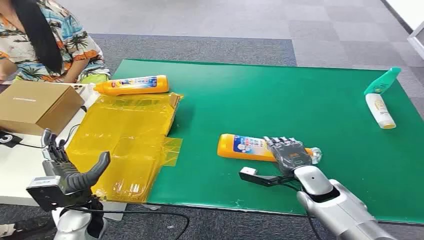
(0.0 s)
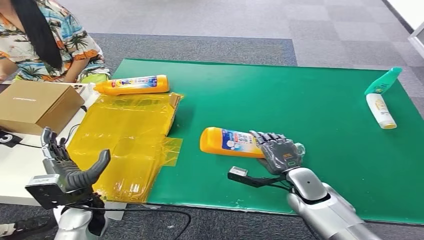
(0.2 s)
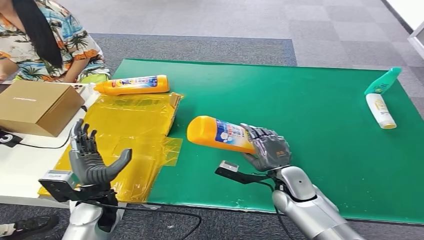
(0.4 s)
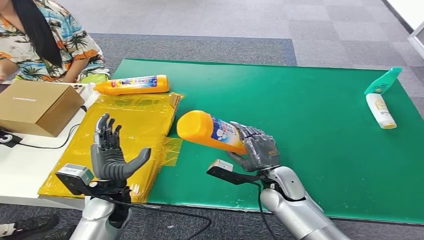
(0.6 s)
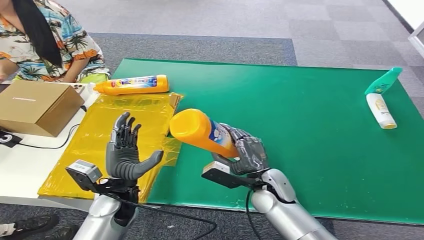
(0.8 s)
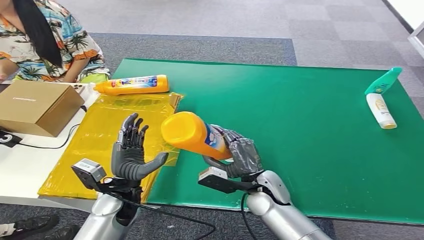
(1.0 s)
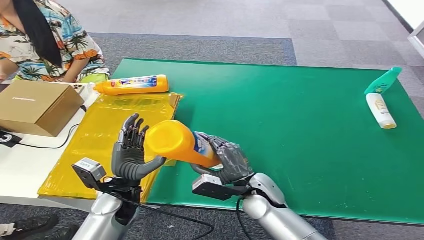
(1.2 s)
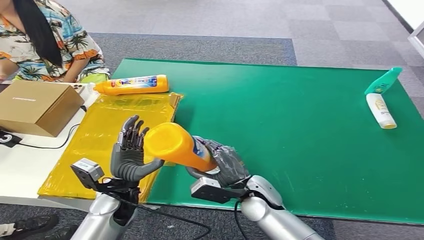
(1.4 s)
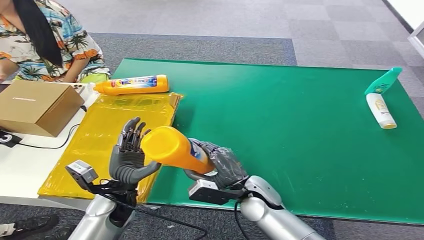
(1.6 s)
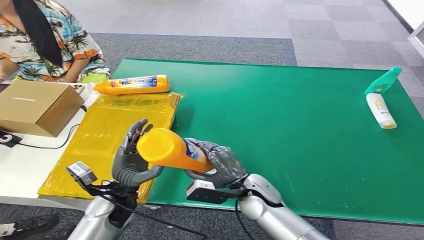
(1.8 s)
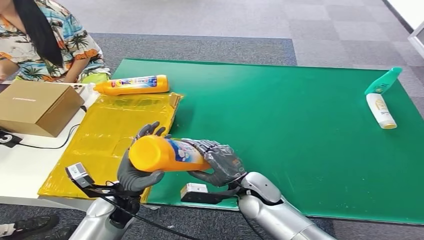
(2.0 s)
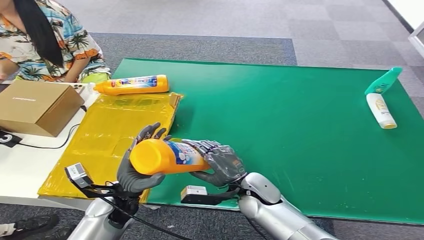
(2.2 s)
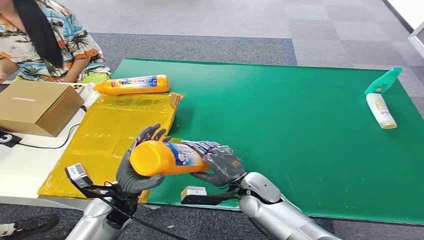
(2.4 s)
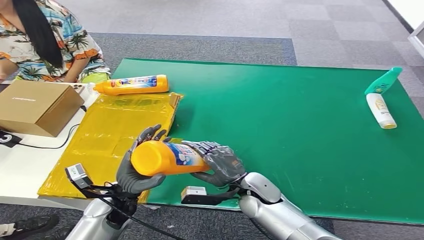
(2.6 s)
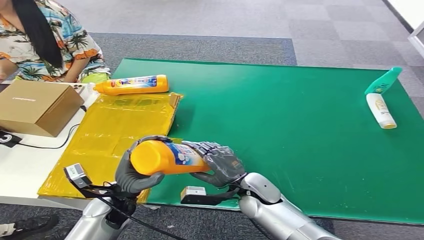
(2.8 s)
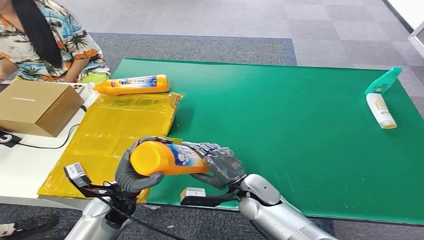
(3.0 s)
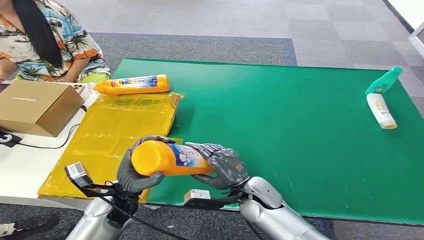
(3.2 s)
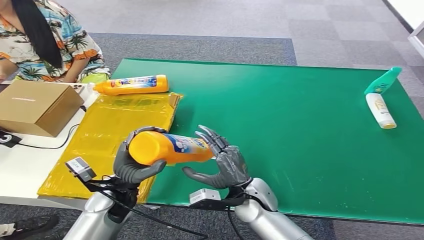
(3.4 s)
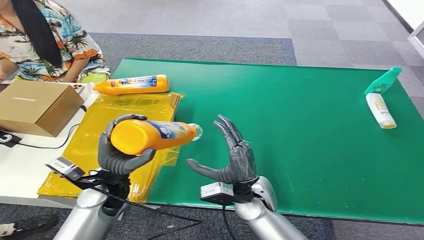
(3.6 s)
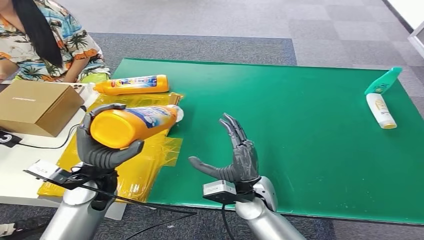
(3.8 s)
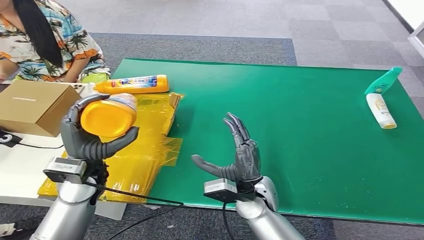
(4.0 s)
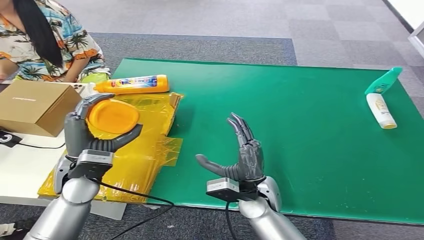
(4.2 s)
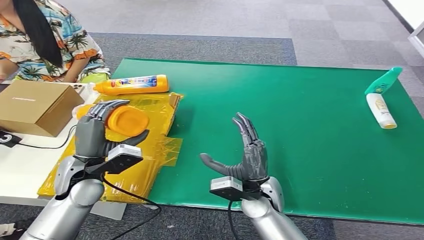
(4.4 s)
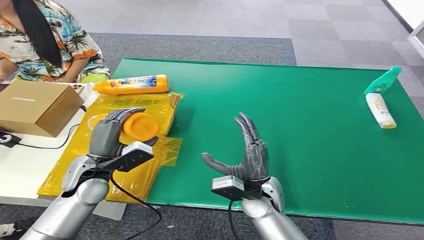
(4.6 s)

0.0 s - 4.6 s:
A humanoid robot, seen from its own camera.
Step, 0.0 s - 1.0 s: Pick up the bottle from the table.
Step, 1.4 s - 4.6 s: Turn the bottle to the front side.
3.0 s - 4.6 s: The left hand moves upward and to the left, about 10 cm.

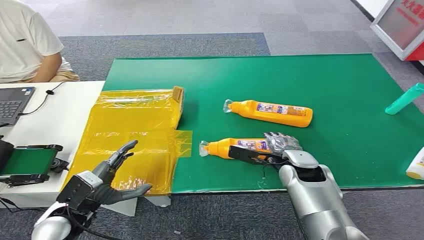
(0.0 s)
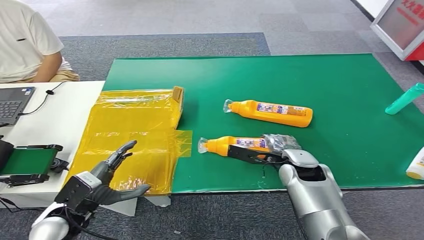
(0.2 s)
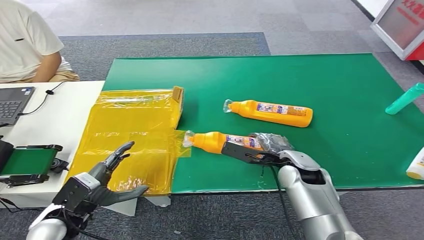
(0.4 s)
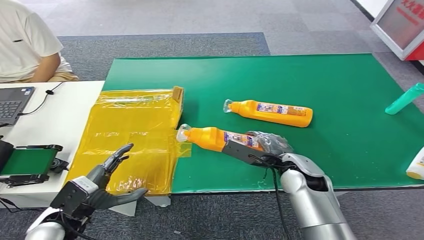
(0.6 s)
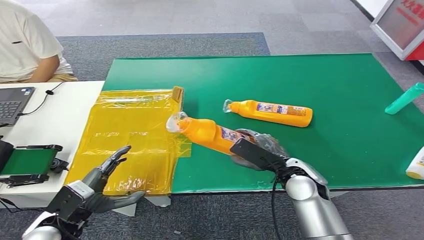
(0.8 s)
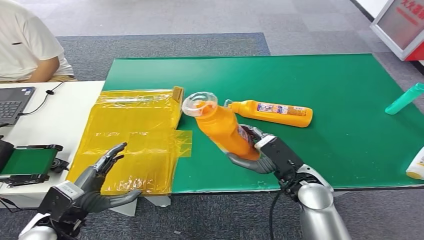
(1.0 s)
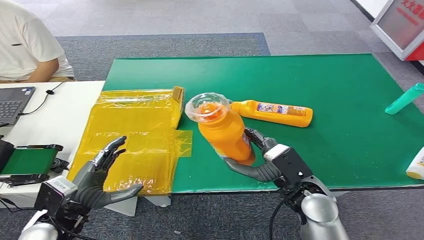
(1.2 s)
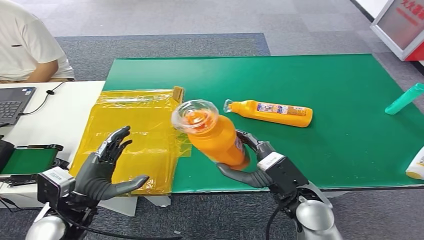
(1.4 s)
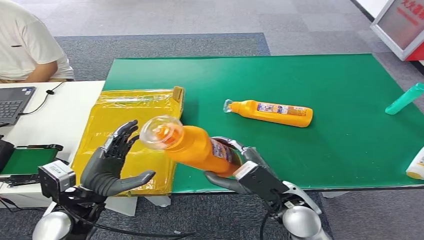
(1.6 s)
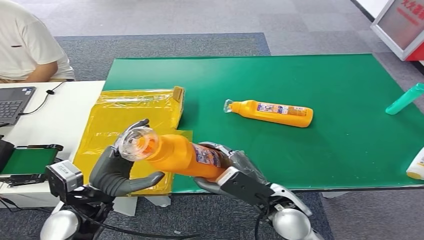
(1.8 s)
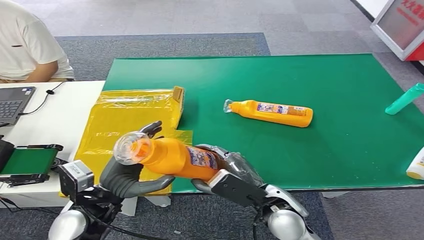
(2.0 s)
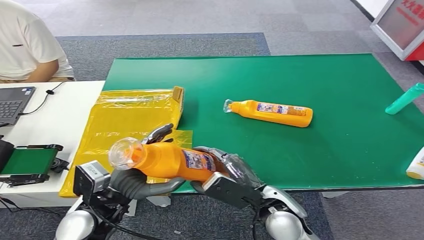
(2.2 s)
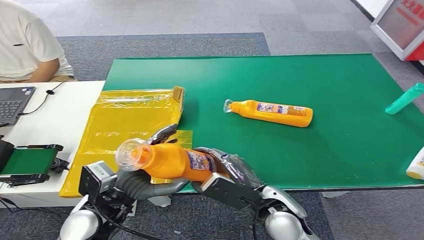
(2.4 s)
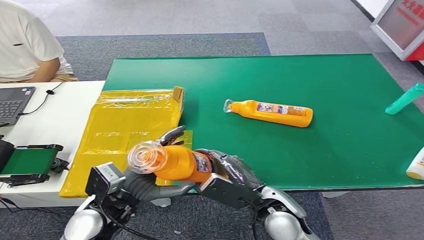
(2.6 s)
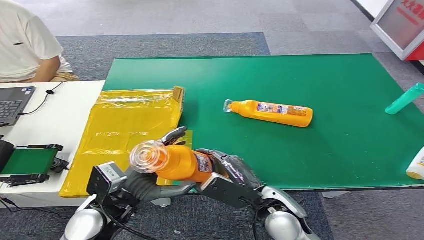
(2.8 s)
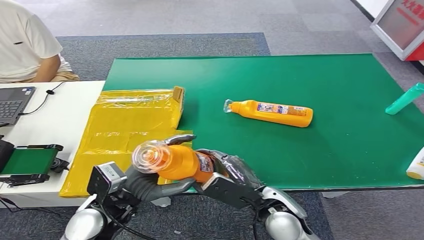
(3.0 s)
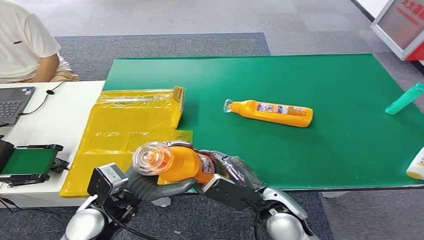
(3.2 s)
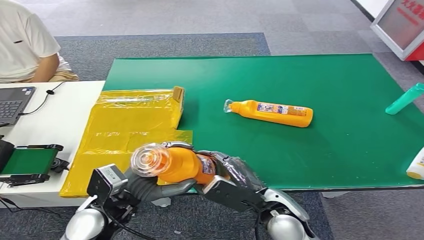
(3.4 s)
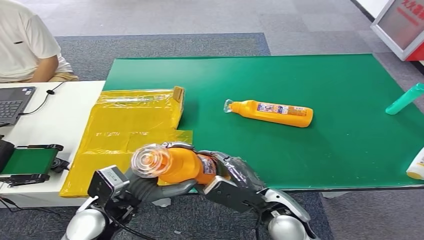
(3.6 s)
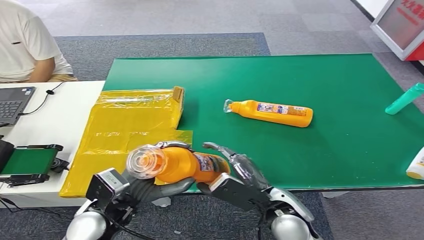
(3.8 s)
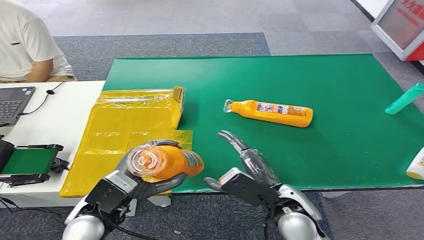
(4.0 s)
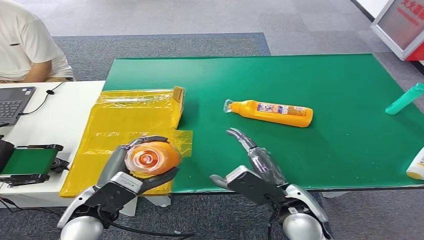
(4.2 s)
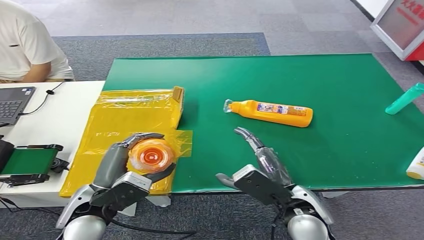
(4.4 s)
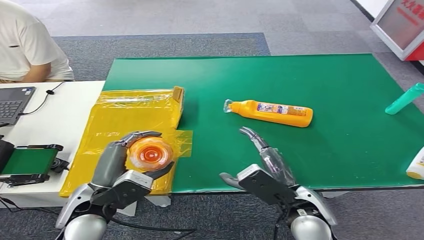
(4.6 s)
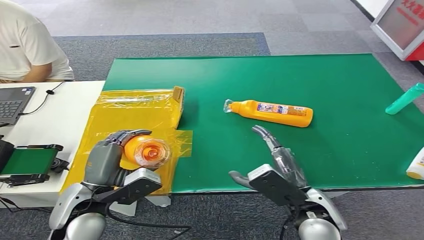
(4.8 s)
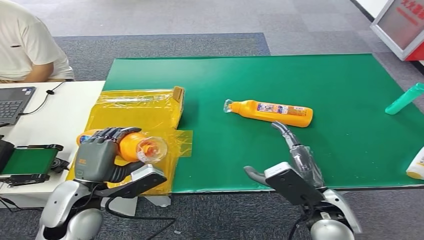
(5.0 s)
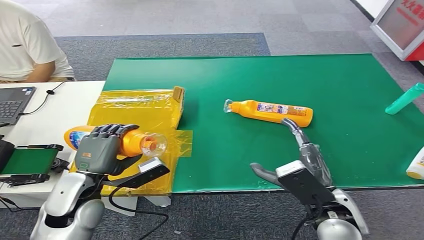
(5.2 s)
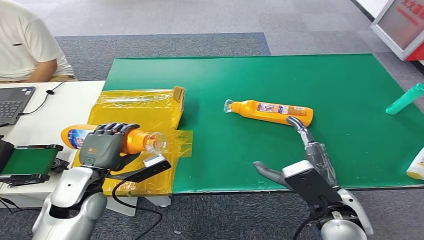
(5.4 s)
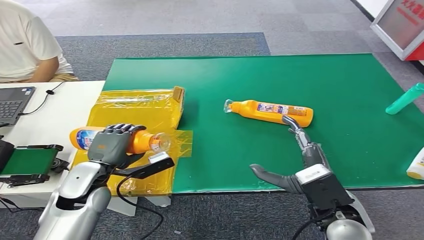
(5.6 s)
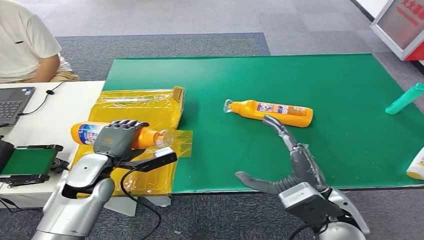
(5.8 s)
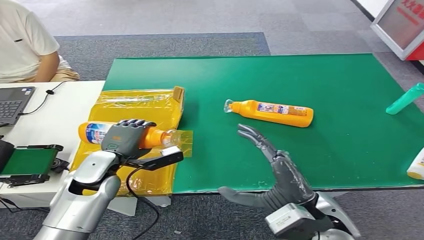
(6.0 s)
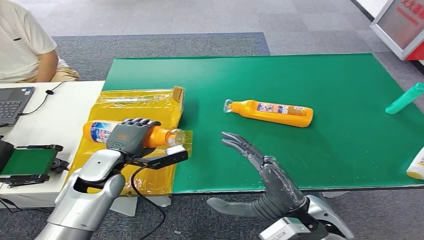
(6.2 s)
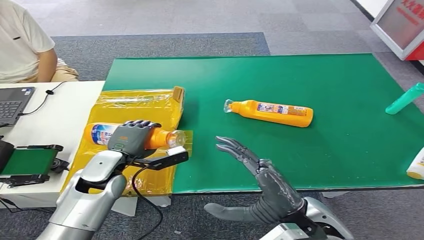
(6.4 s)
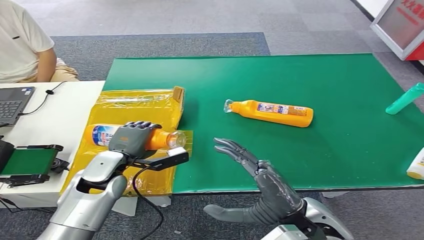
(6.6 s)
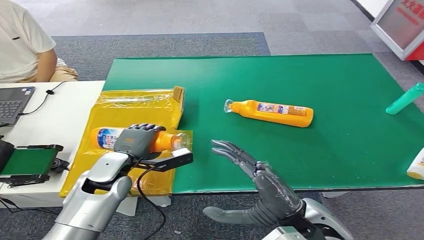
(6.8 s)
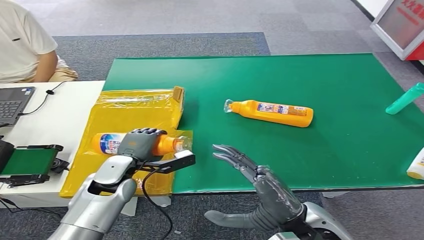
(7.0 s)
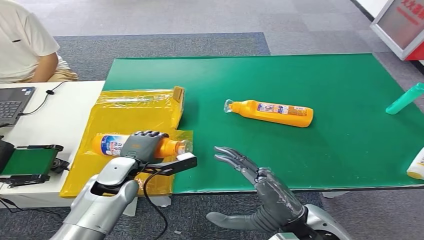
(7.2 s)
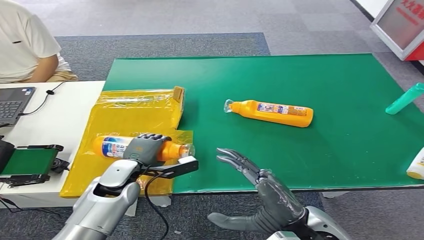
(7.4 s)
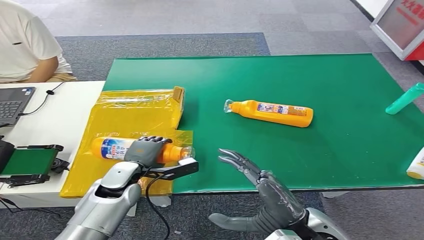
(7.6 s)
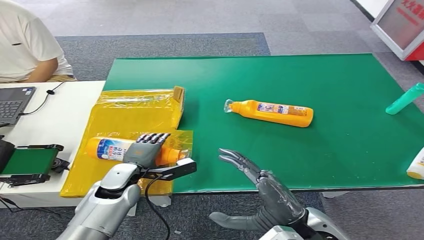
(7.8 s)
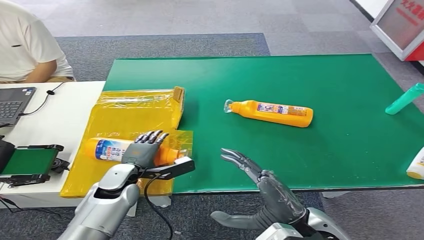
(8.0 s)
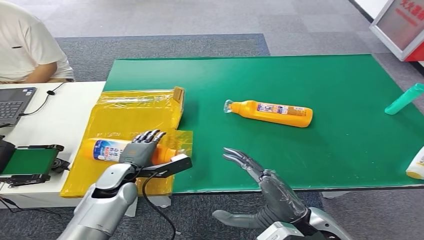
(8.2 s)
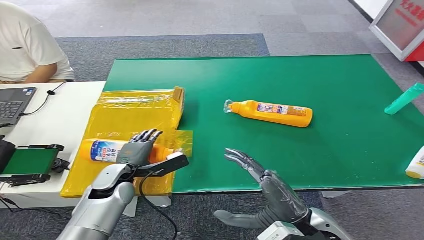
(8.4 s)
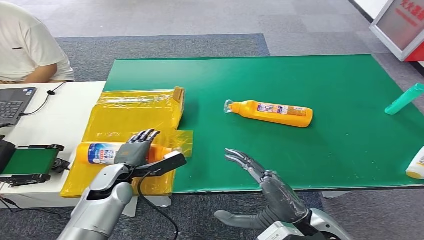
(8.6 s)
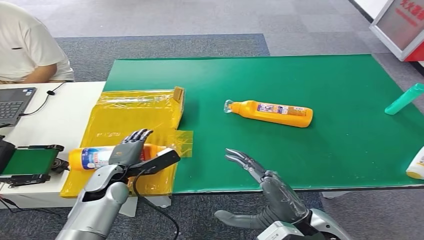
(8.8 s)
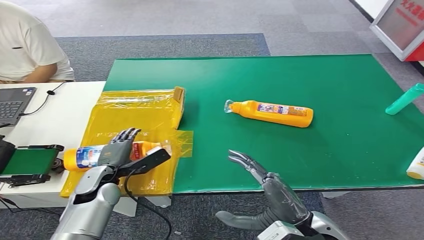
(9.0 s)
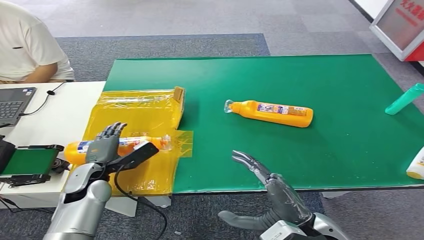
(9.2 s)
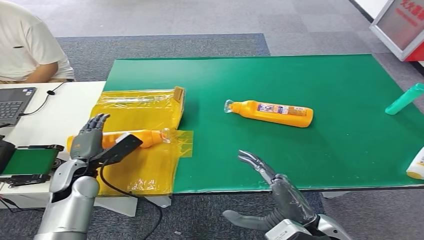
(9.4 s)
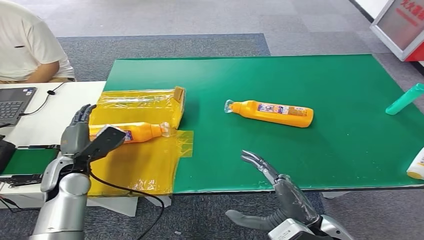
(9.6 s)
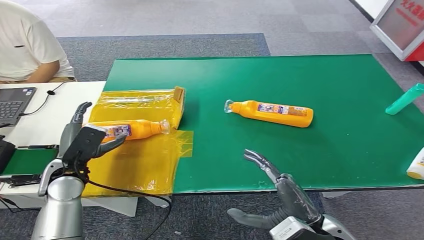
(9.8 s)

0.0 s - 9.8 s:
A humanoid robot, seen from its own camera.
Step, 0.0 s - 1.2 s: Pick up the bottle from the table.
Step, 3.4 s - 9.8 s: Turn the bottle to the front side.
1.4 s - 2.8 s: The left hand is displaced to the right by approximately 5 cm, while the right hand shifts by roughly 5 cm.
4.2 s - 5.6 s: The right hand travels to the right by approximately 5 cm. The left hand moves forward, roughly 10 cm.
5.6 s - 7.0 s: The right hand changes place by about 5 cm. Meanwhile the left hand moves about 5 cm.
7.0 s - 8.4 s: The hands stay close to where they were, moving slightly.
8.4 s - 9.8 s: The left hand shifts roughly 10 cm upward and to the left.

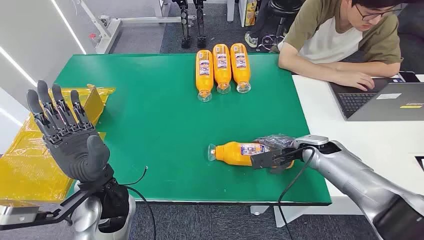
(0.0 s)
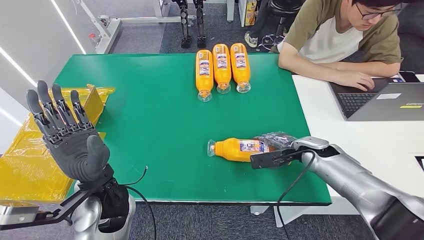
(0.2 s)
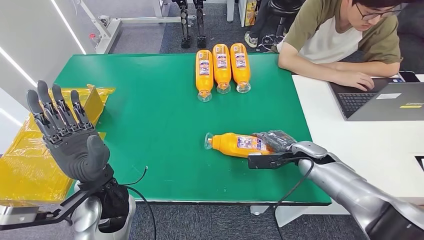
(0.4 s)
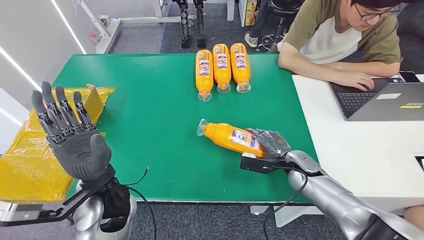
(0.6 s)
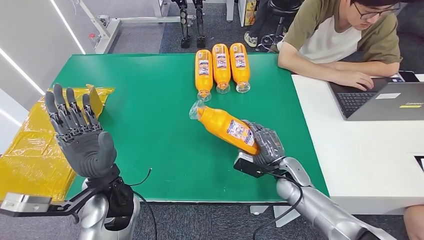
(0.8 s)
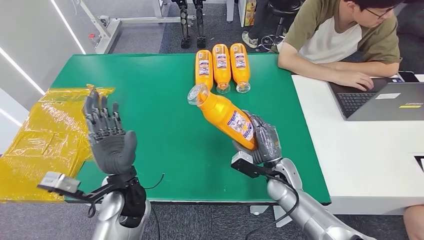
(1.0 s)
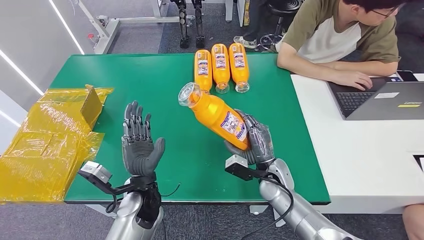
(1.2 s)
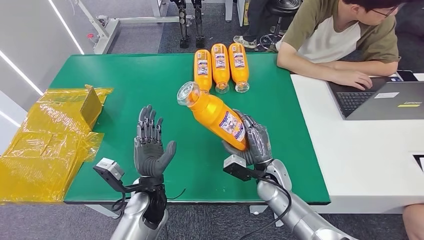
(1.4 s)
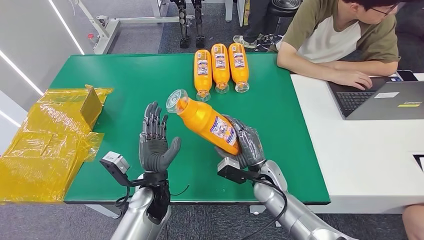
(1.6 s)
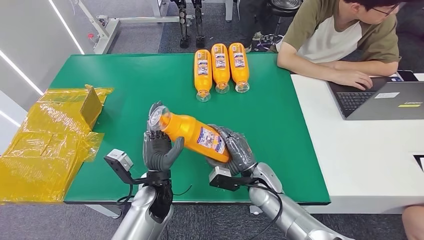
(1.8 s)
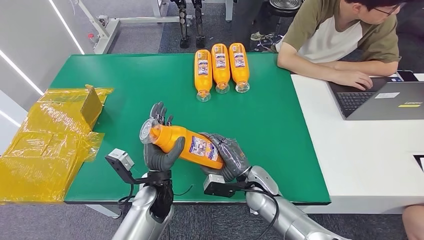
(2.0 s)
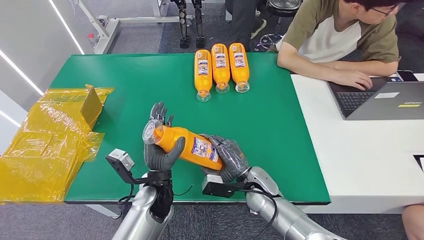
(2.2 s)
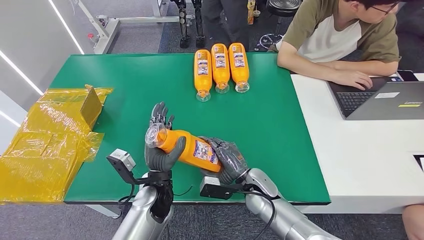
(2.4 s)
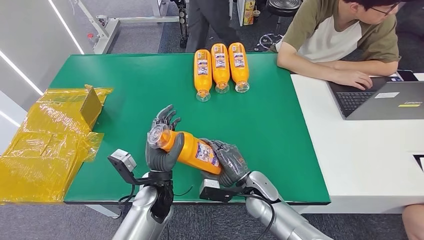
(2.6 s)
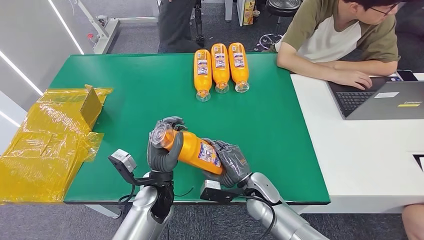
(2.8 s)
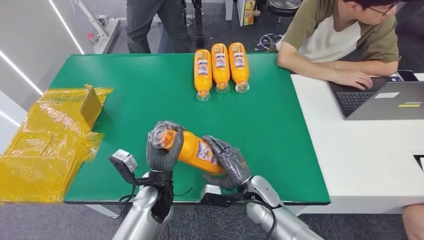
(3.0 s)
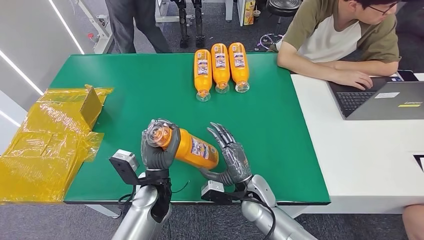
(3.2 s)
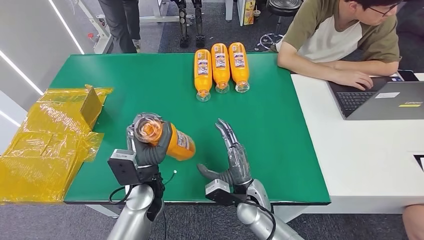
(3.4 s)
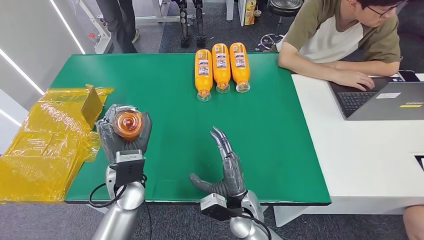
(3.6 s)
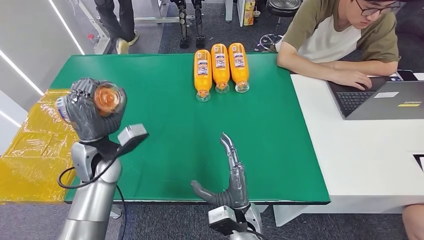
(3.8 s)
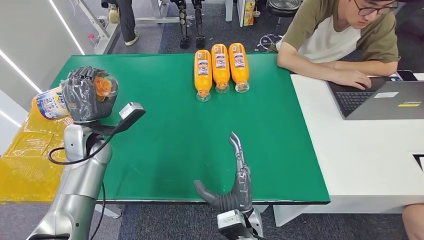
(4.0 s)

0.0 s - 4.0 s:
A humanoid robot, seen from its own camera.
Step, 0.0 s - 2.2 s: Pick up the bottle from the table.
1.4 s - 2.6 s: The right hand ends up some 5 cm from where it was.
